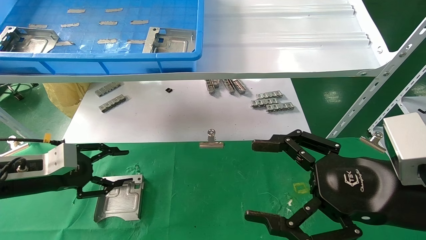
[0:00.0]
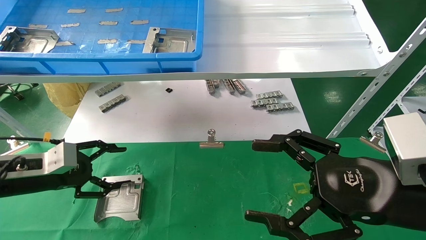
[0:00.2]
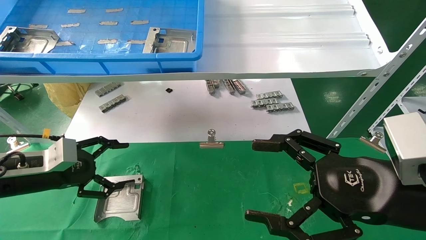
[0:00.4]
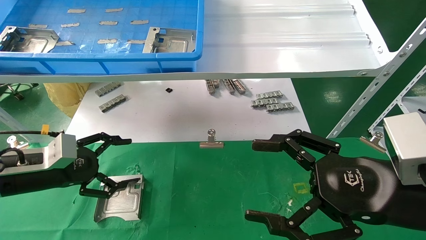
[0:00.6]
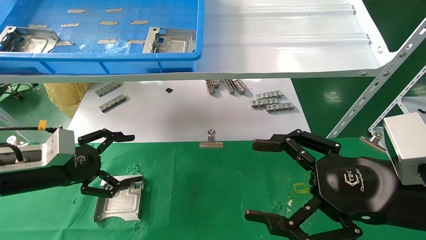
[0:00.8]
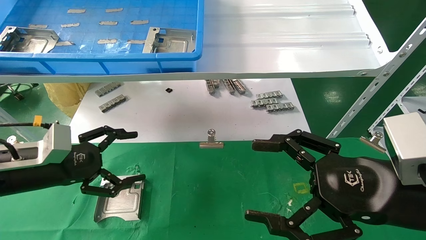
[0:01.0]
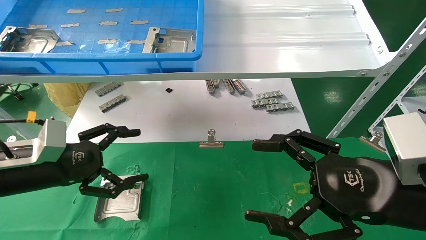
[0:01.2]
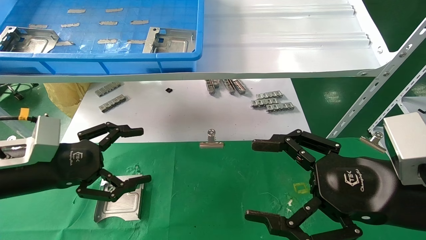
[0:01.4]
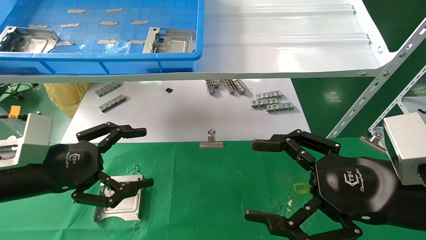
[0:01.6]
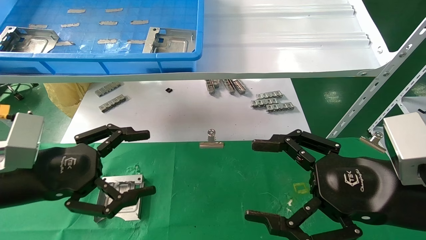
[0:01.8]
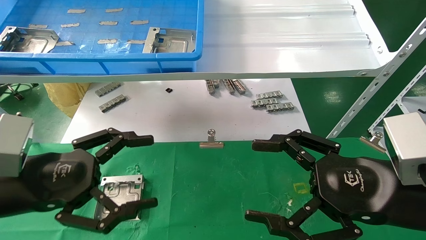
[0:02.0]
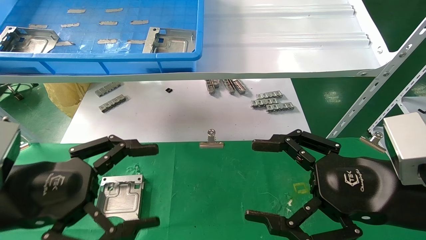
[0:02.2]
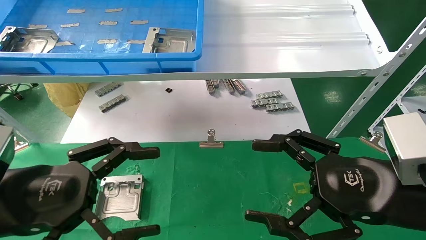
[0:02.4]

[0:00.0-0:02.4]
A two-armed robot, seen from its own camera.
Task of the whole recording: use the mechanical arm to pick up the parts and place them on the table.
0:00.0 to 0:01.2: The left gripper shifts by about 5 cm, and opens.
0:01.2 to 0:02.4: The left gripper travels backward and to the right by roughly 10 cm.

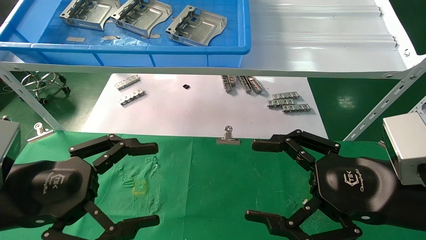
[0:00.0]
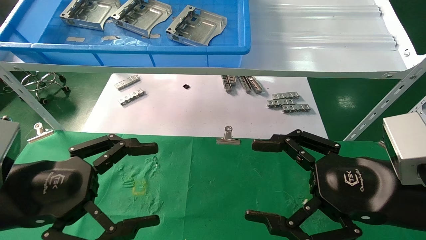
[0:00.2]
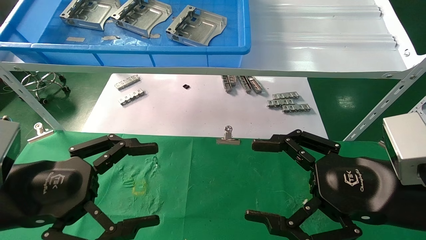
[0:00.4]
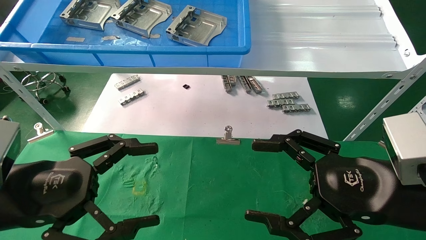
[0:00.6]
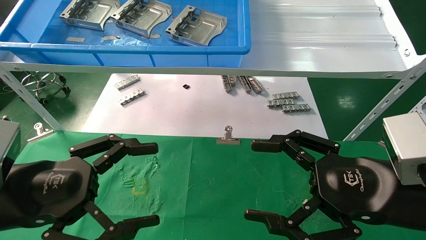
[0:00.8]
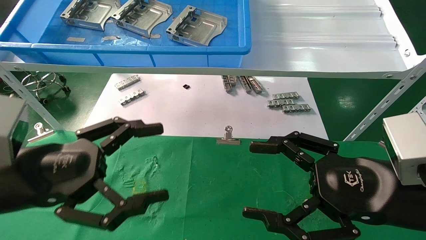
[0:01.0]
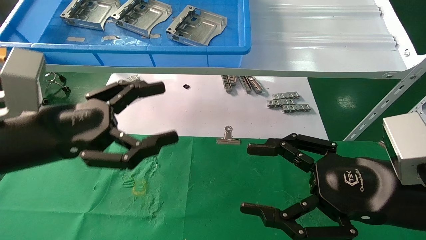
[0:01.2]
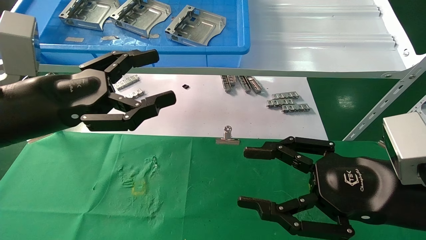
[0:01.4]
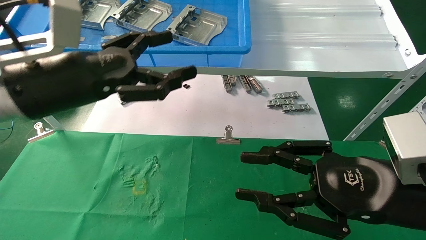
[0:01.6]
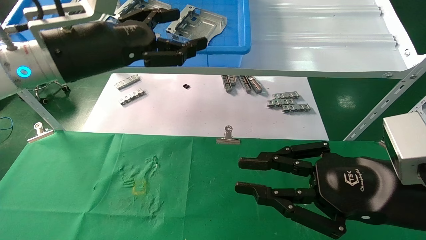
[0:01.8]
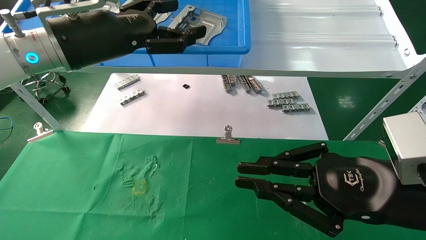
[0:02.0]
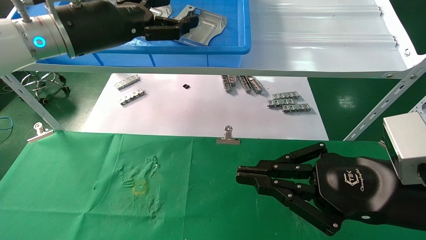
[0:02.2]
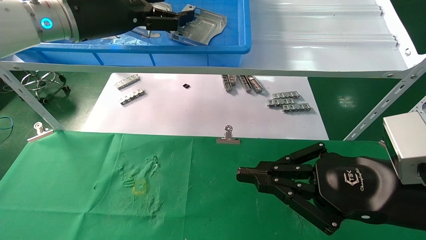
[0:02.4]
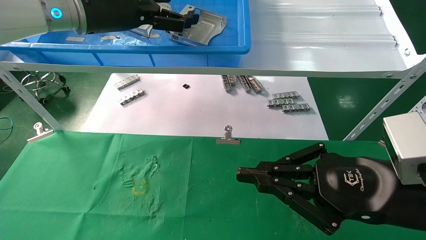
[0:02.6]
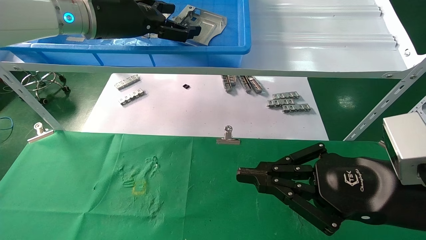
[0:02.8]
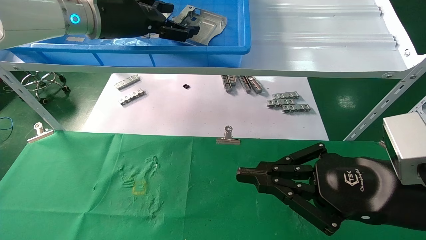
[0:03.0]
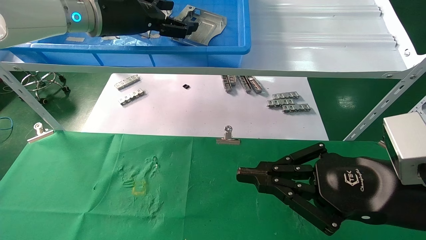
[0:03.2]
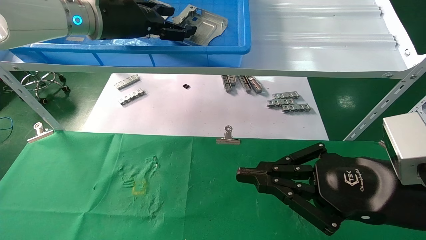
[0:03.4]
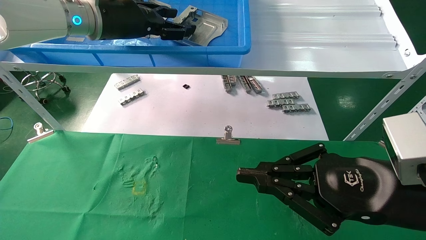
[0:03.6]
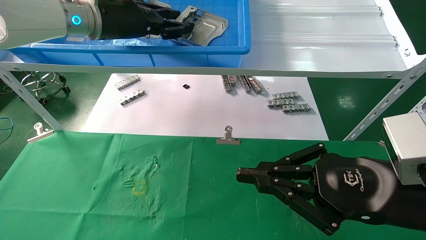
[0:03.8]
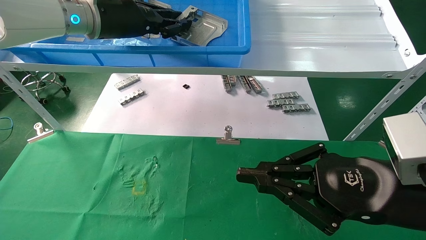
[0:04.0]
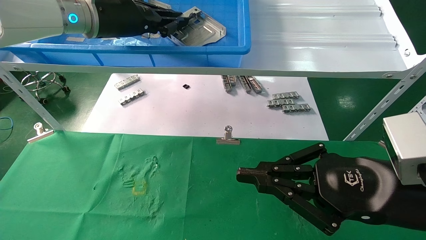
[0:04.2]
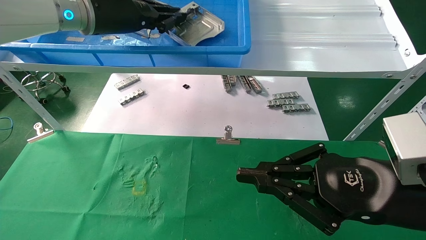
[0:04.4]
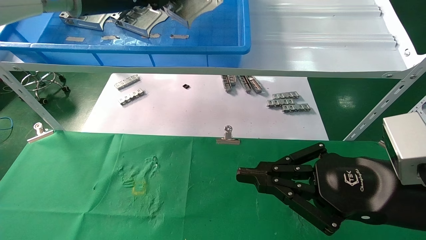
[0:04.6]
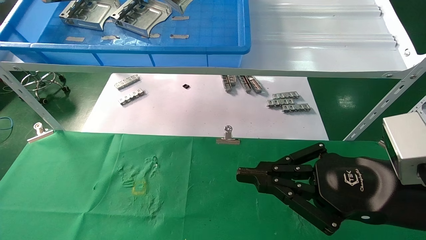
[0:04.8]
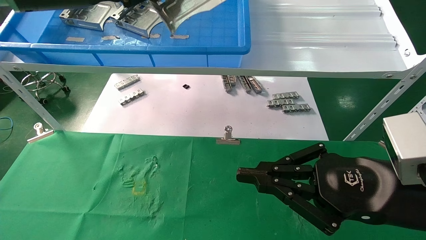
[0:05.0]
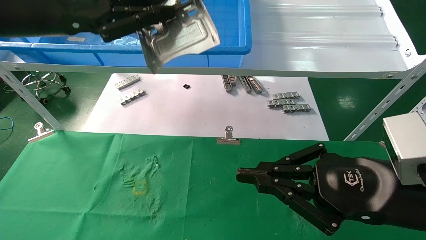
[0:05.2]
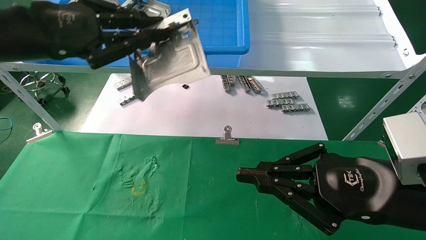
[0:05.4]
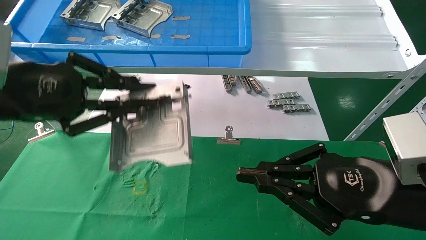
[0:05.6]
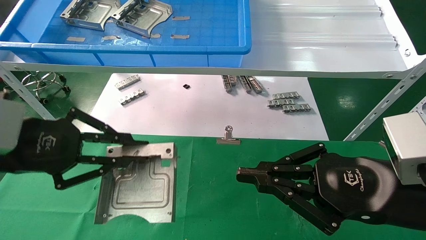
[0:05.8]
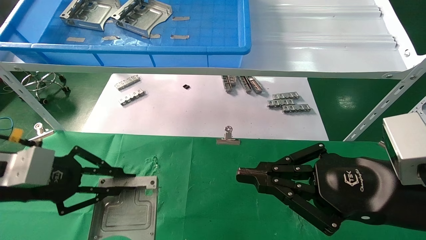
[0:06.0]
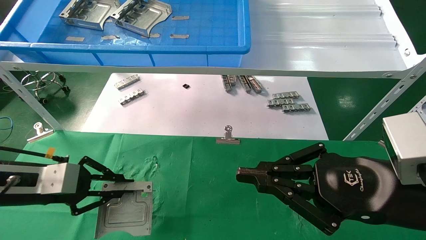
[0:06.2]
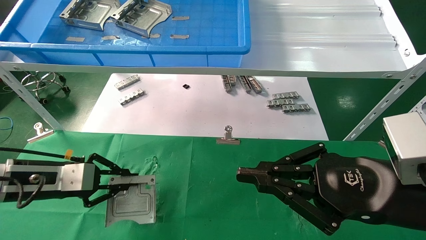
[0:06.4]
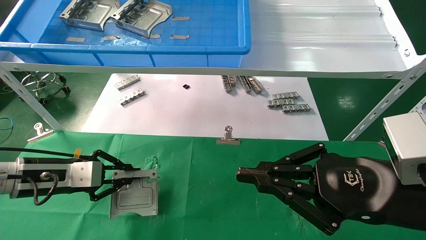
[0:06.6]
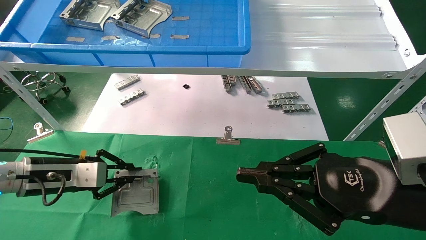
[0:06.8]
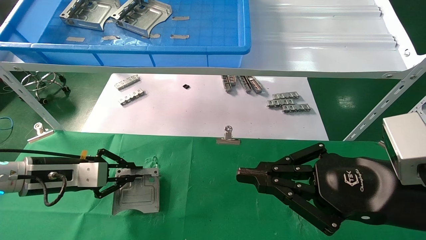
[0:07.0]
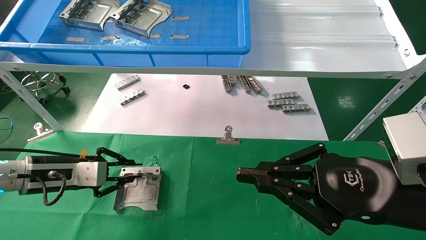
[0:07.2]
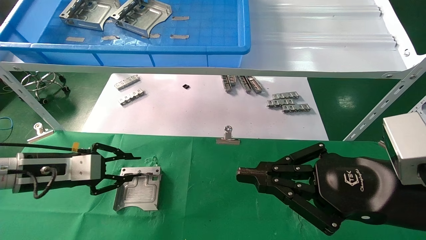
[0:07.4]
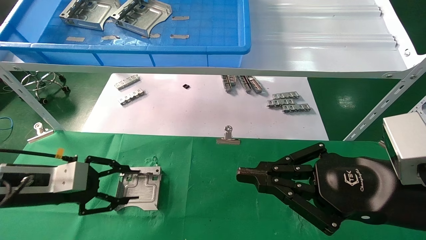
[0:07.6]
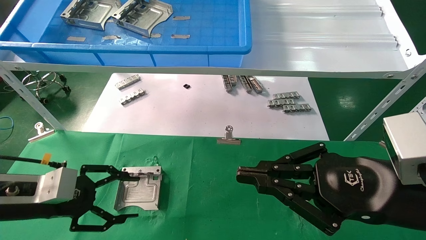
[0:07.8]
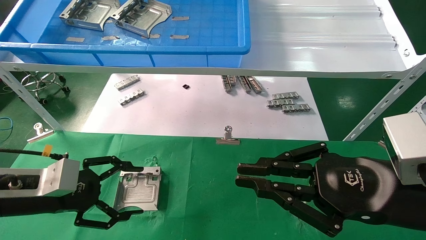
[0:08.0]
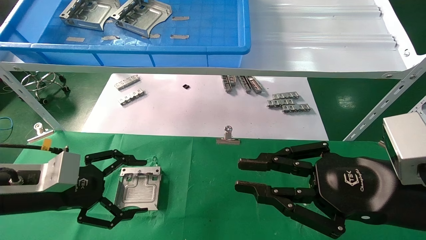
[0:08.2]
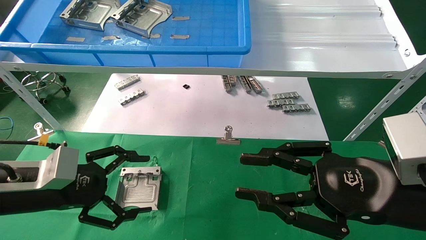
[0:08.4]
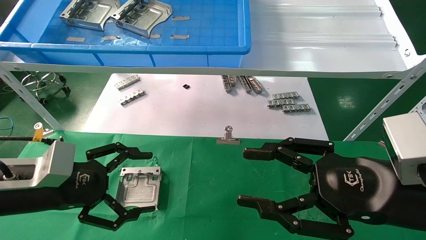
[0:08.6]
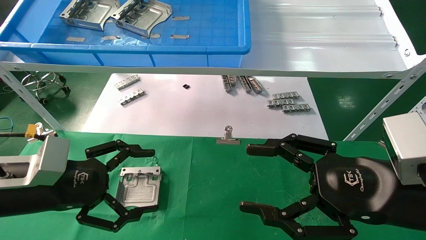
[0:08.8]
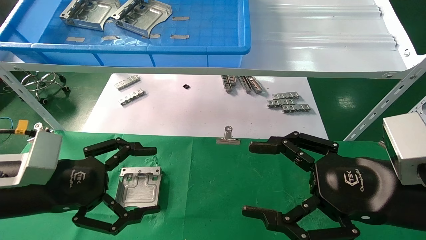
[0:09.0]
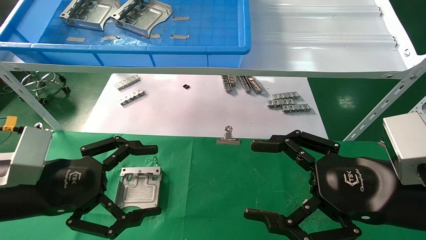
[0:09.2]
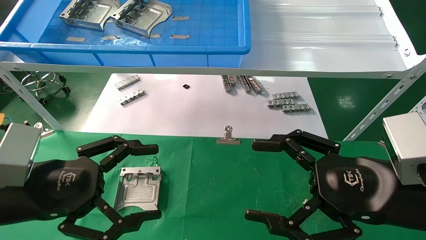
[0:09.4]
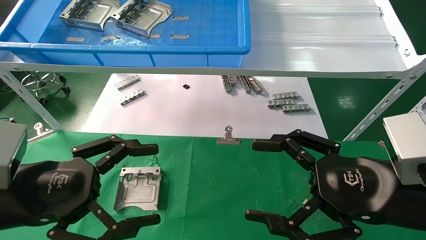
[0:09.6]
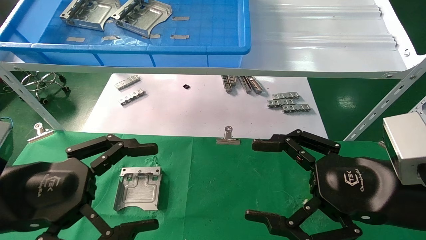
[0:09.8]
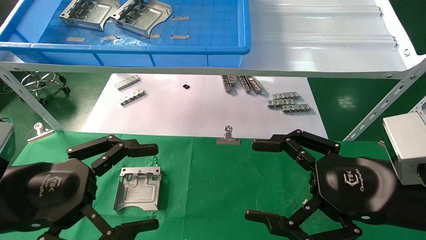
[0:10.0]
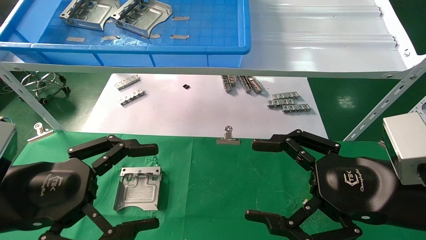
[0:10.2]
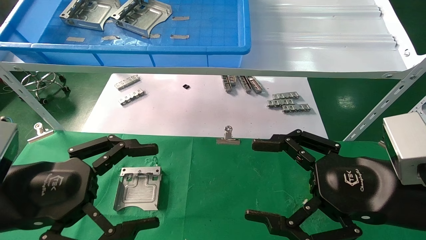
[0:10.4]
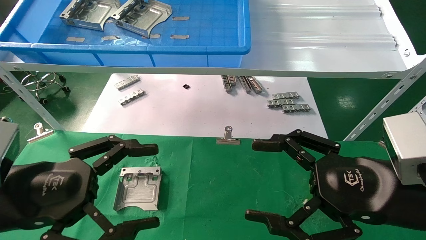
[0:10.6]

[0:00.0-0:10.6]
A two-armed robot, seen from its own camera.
Task of the whole recording: use the mechanical arm to pick up the parts and place them on the table.
Step, 0:01.2 to 0:04.2: Pick up the hard drive bracket from the feeding area.
Step, 0:04.4 to 0:07.2: Place the hard drive bracket into the box.
0:00.0 to 0:01.6: The left gripper shifts roughly 15 cm upward and forward. Meanwhile the right gripper closes up.
0:01.6 to 0:03.0: The right gripper closes its fingers. Meanwhile the left gripper is displaced forward and upward by approximately 15 cm.
0:03.0 to 0:04.6: The left gripper closes up.
0:04.6 to 0:06.0: The left gripper moves downward, to the left and backward, approximately 30 cm.
0:06.0 to 0:07.6: The left gripper travels downward by roughly 5 cm.
0:07.6 to 0:09.0: The left gripper moves backward and to the right, about 10 cm, and opens its fingers. Meanwhile the right gripper opens up.
0:09.0 to 0:10.6: The left gripper changes place by approximately 5 cm.

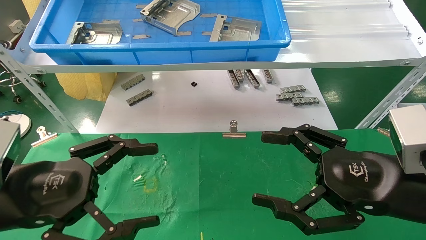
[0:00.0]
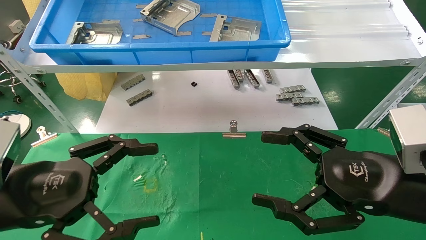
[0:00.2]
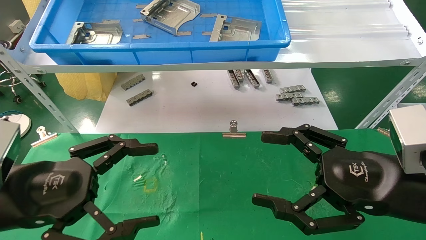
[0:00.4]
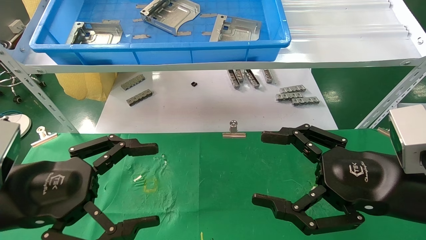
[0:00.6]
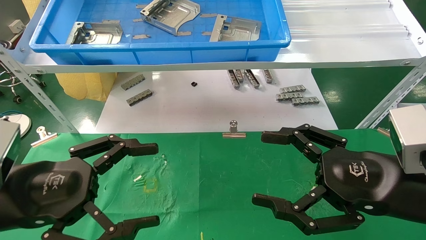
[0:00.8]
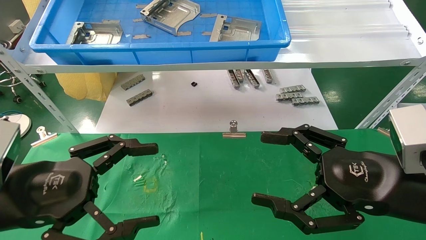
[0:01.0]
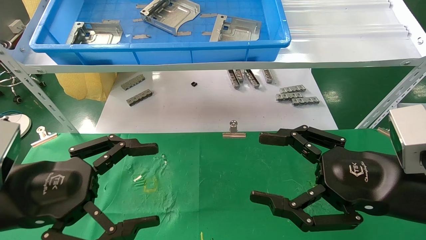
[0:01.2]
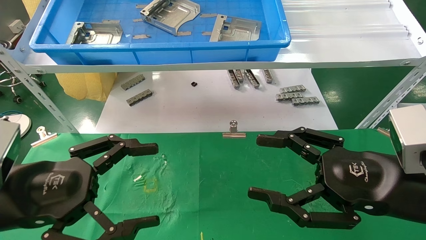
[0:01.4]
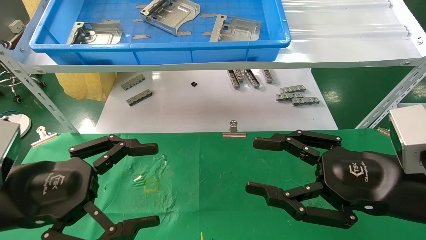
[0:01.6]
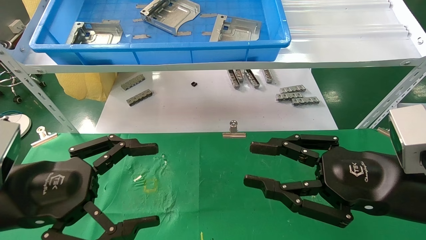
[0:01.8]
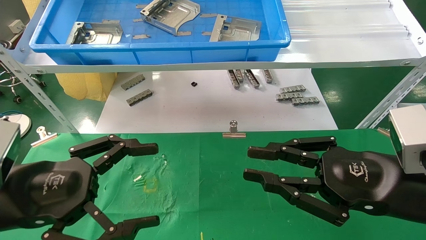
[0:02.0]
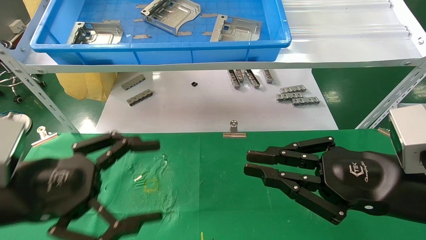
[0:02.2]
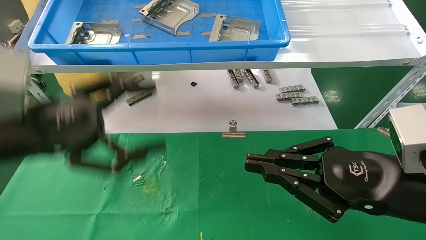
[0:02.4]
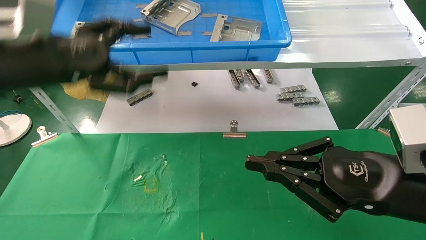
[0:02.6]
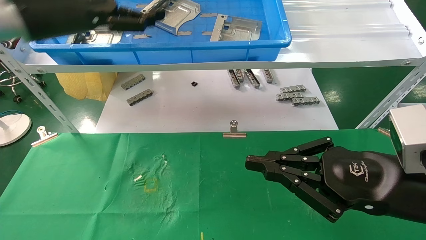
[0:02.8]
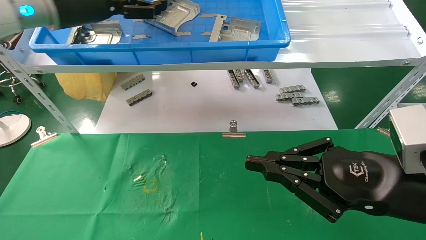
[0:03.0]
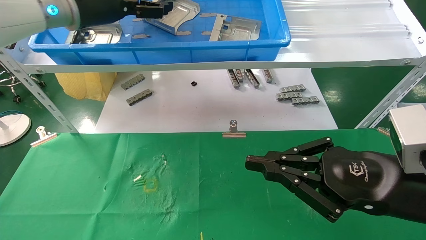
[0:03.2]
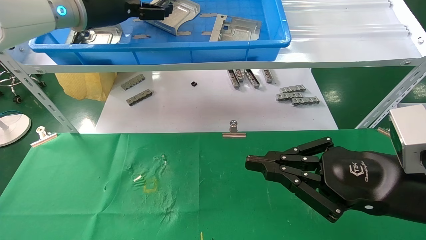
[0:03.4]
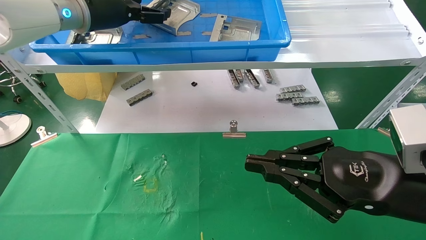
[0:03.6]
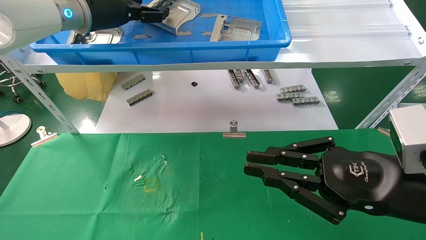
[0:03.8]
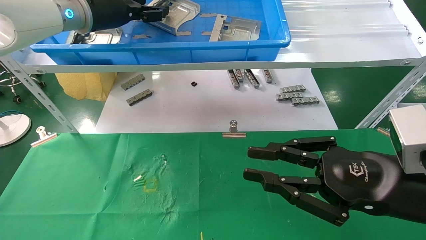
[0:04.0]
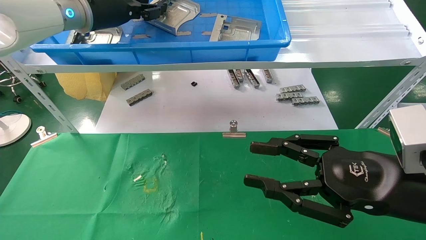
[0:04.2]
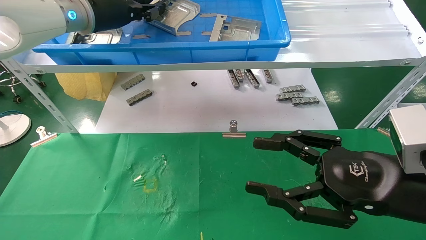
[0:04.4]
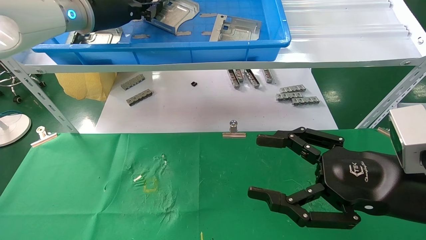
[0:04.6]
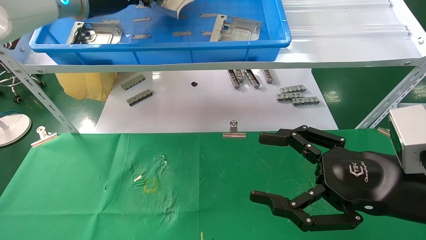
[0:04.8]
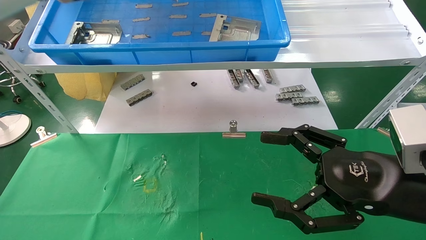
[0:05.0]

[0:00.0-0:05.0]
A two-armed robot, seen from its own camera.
Task of the whole recording: use the mechanical arm to pick up the parts and place them on the table.
0:00.0 to 0:01.6: The two grippers keep their place.
0:01.6 to 0:03.4: The right gripper closes, while the left gripper goes approximately 35 cm forward and upward.
0:03.4 to 0:05.0: The right gripper opens up. Meanwhile the left gripper closes.
